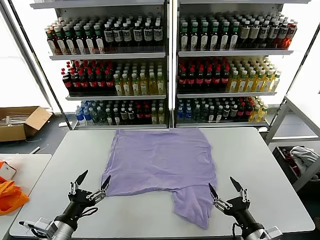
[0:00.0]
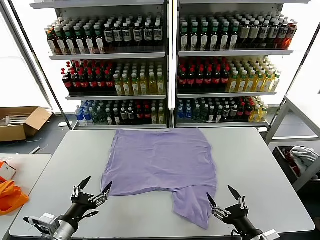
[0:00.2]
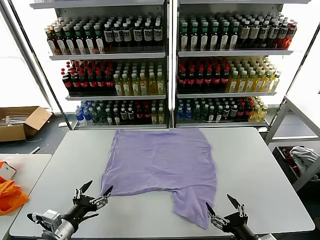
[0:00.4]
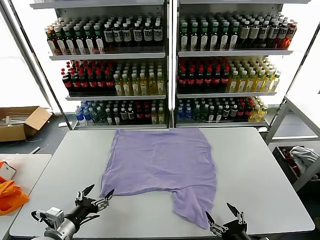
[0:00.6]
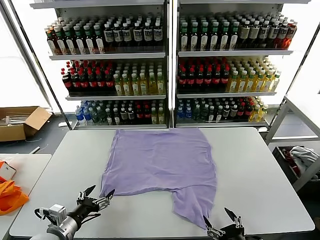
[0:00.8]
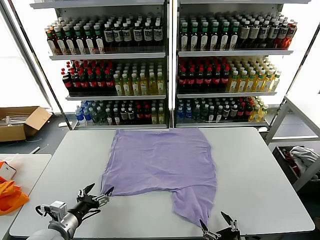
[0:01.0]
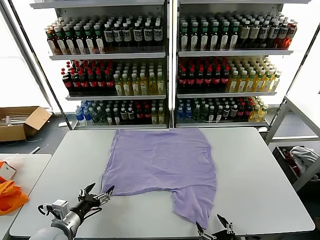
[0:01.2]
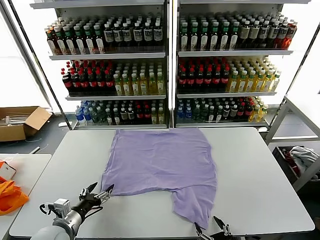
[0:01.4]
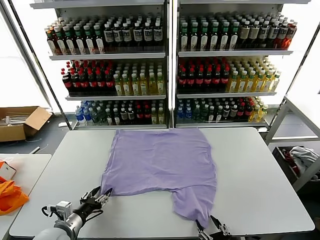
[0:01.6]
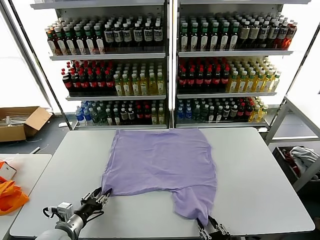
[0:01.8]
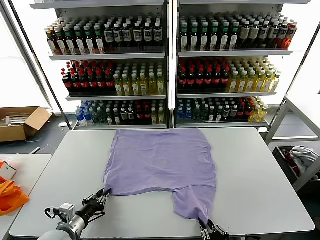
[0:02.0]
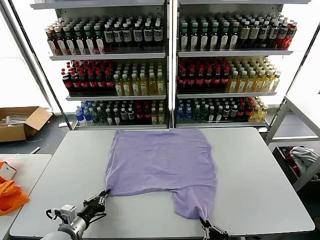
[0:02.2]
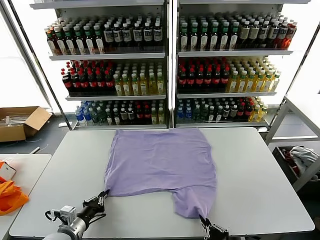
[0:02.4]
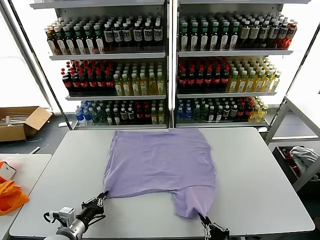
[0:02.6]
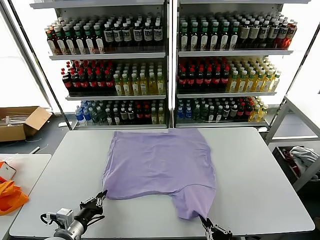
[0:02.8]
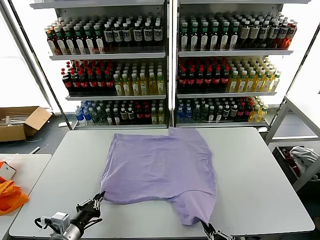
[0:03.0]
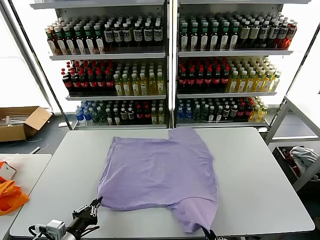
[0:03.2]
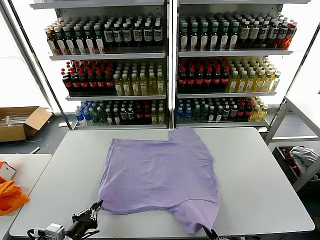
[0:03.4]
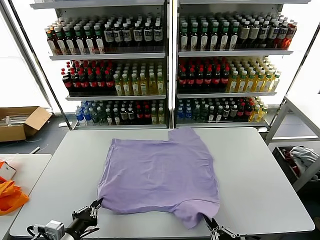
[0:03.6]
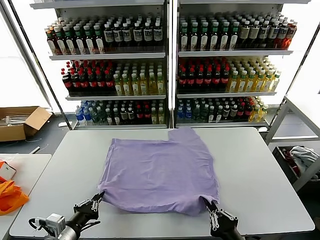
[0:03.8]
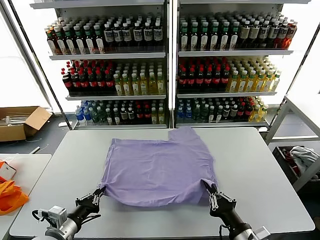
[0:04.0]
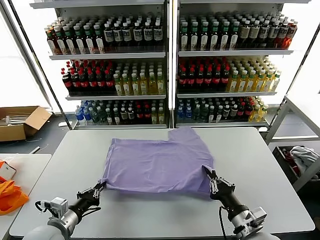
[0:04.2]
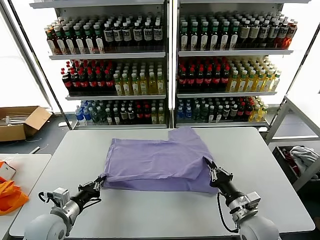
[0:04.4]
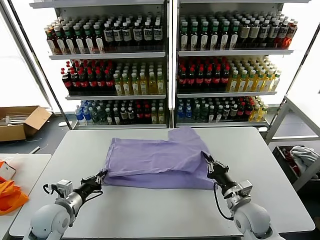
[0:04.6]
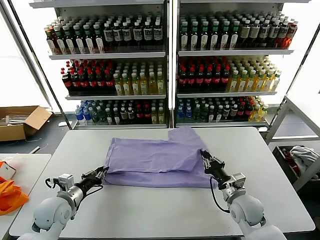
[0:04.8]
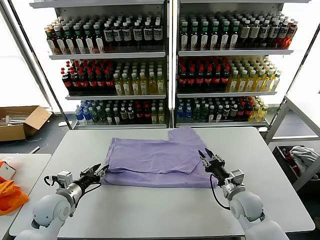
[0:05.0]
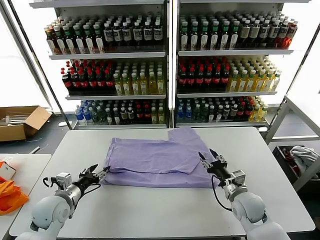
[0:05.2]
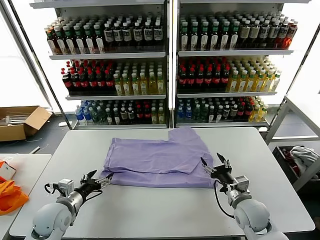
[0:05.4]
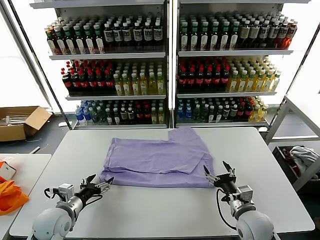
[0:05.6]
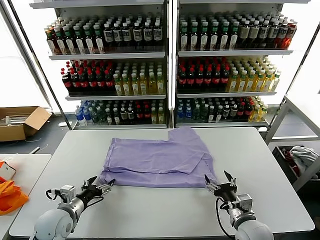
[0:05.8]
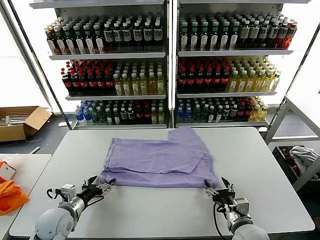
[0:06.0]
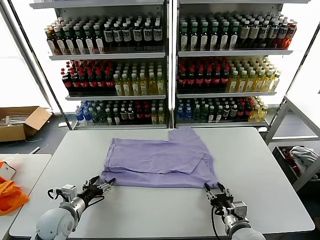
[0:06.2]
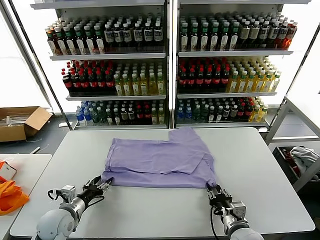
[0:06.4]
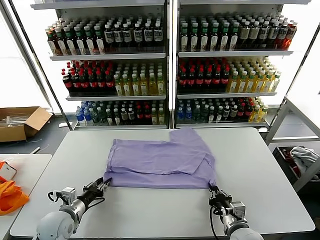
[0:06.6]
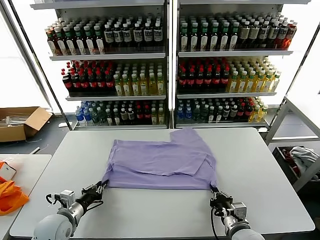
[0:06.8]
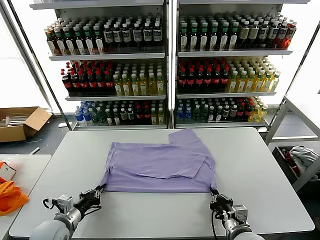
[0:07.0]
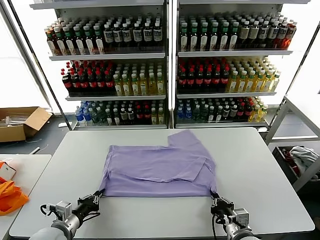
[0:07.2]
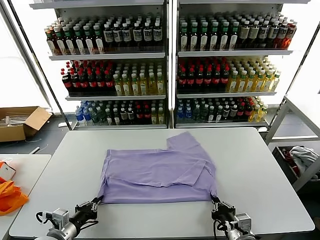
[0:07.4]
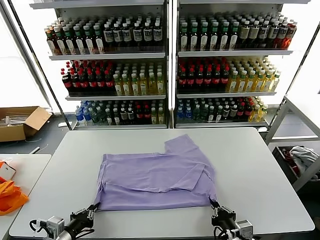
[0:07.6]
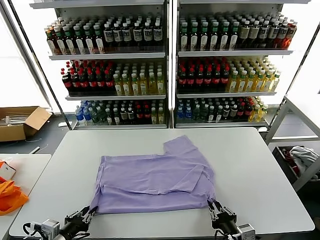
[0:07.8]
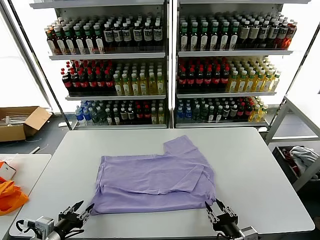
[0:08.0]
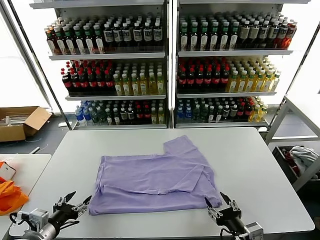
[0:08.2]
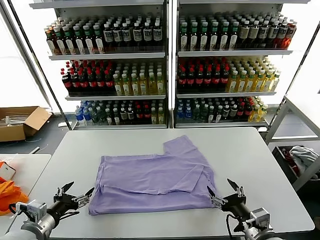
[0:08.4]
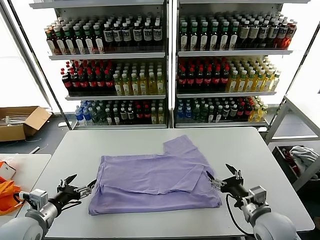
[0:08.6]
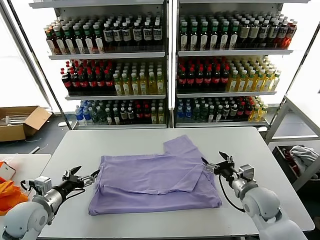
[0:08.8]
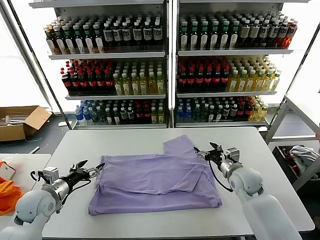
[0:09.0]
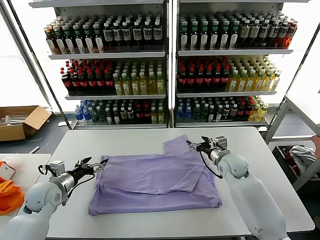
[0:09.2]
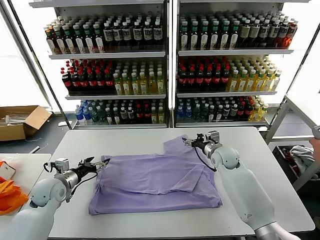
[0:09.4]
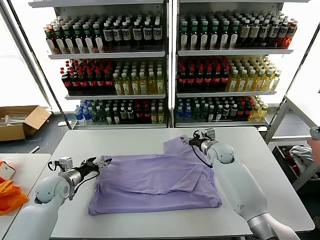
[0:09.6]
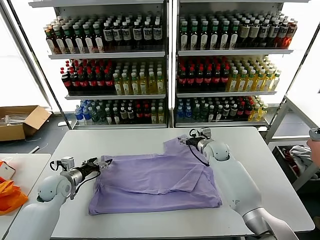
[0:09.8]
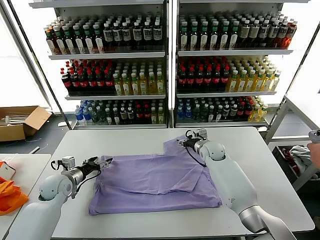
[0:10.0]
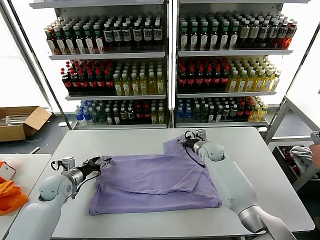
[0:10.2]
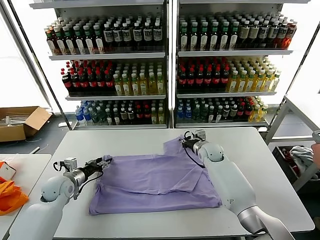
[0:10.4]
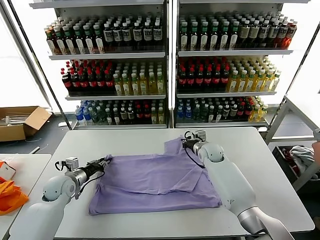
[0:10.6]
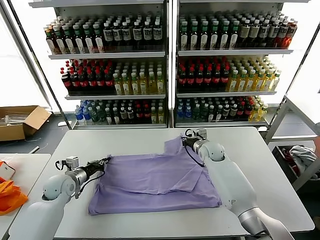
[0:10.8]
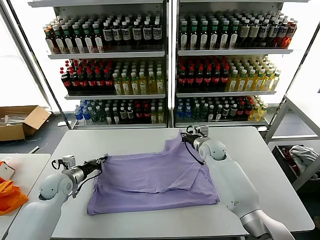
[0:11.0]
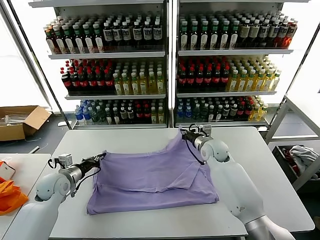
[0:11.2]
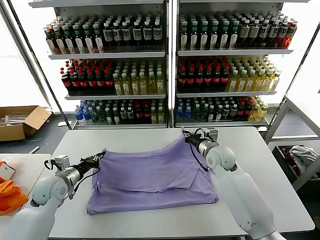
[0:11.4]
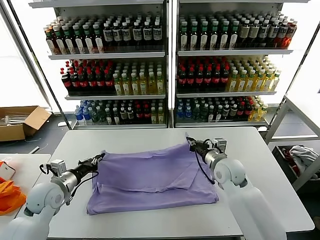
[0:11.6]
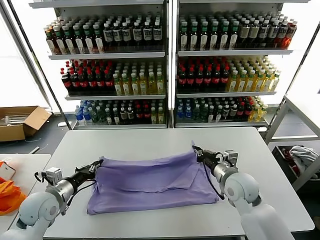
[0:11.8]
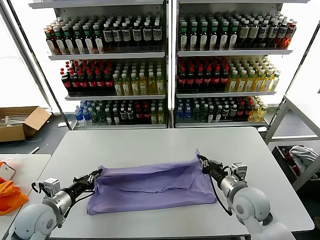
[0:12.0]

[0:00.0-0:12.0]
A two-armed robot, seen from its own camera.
Task of the whole recording: fold and organize the clothes.
Step, 0:00.0 to 0:02.4: use both grippers simultaneously to clamp the lower edge of the clothing fabric.
Step, 0:02.6 to 0:05.4: use both grippers to drag the lower edge of the fabric forward and fold it over the upper edge.
Step, 0:05.6 to 0:08.2: Drag the clothes downward with both gripper.
Step, 0:08.4 to 0:10.6: use both grippers simultaneously to clamp the upper edge of the clothing fabric.
0:01.6 to 0:03.0: Both grippers travel together backward, about 5 cm. The left gripper closes its fingers. The right gripper closes its fingers.
0:03.0 to 0:04.4: The right gripper is displaced forward by roughly 25 cm. Meanwhile the left gripper goes approximately 10 cm forward.
0:04.4 to 0:06.0: The left gripper opens; the right gripper heads backward, covering roughly 5 cm, and opens up.
0:06.0 to 0:07.6: The right gripper heads backward, covering some 10 cm, and closes; the left gripper moves backward, approximately 10 cm, and closes.
0:07.6 to 0:09.0: The left gripper heads forward, covering roughly 15 cm, and opens its fingers, while the right gripper shifts approximately 30 cm forward, and opens.
0:09.0 to 0:10.4: The right gripper shifts some 10 cm forward and to the left, and closes its fingers. The left gripper shifts about 10 cm forward and downward, and closes.
0:10.4 to 0:12.0: The left gripper is displaced backward and upward by roughly 15 cm, and closes up, while the right gripper moves backward, some 25 cm.

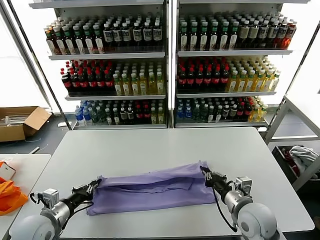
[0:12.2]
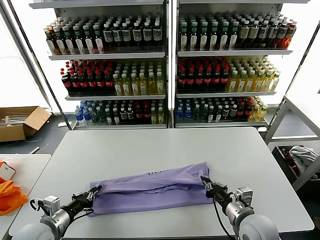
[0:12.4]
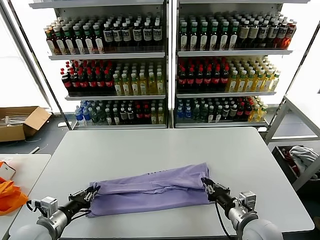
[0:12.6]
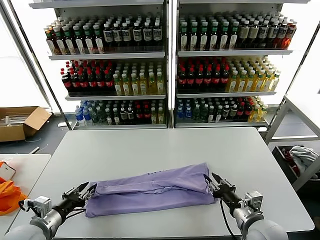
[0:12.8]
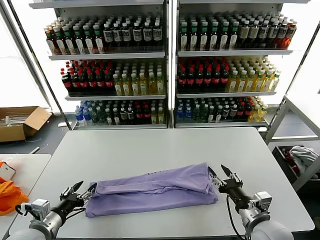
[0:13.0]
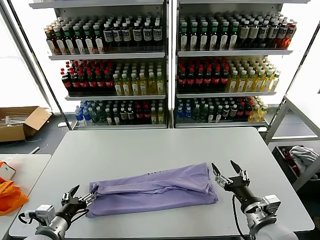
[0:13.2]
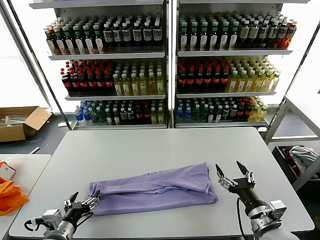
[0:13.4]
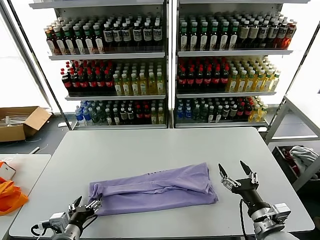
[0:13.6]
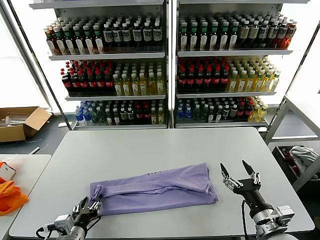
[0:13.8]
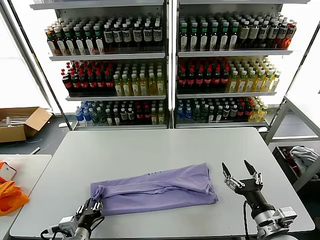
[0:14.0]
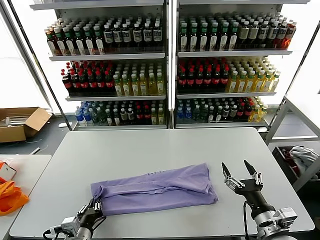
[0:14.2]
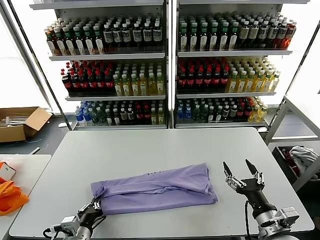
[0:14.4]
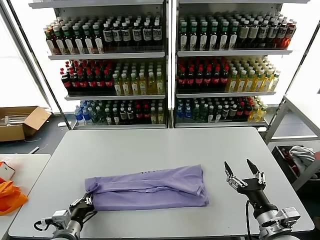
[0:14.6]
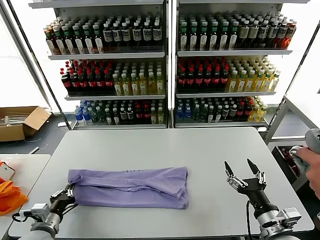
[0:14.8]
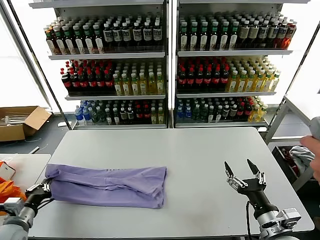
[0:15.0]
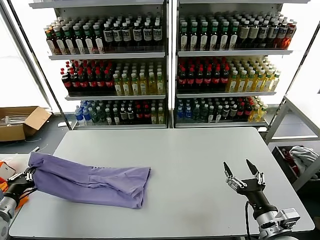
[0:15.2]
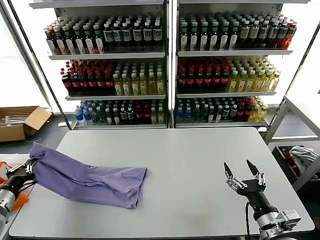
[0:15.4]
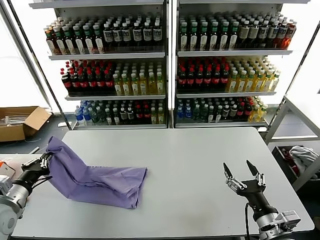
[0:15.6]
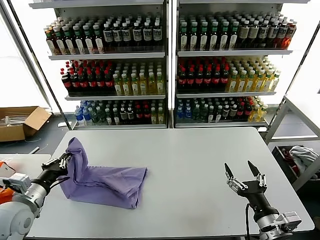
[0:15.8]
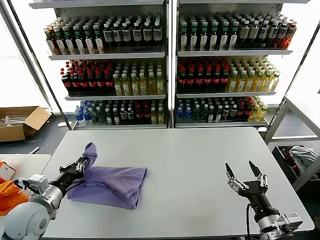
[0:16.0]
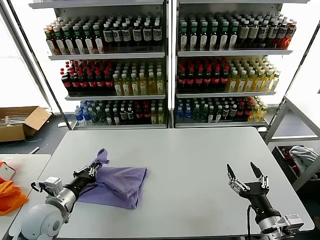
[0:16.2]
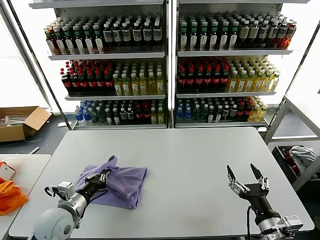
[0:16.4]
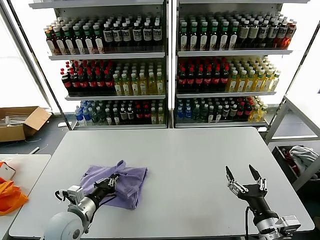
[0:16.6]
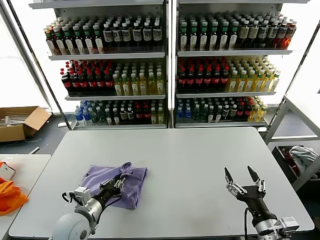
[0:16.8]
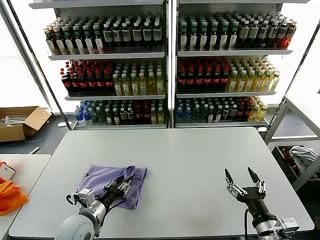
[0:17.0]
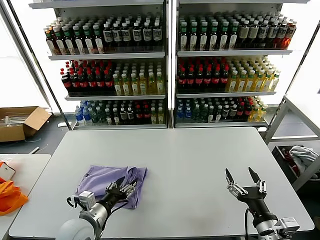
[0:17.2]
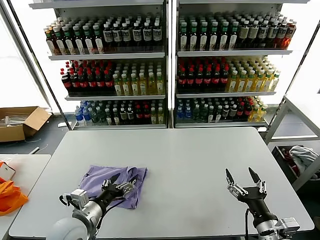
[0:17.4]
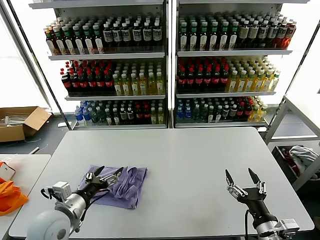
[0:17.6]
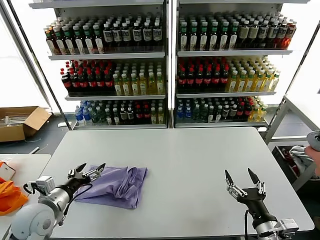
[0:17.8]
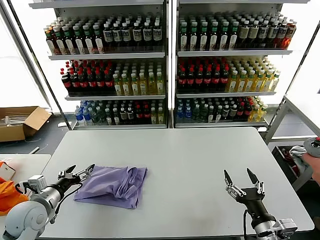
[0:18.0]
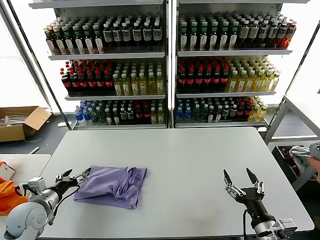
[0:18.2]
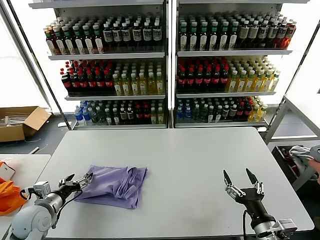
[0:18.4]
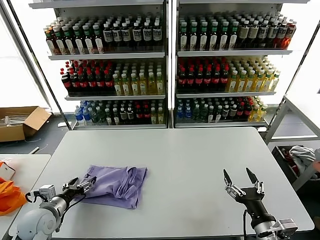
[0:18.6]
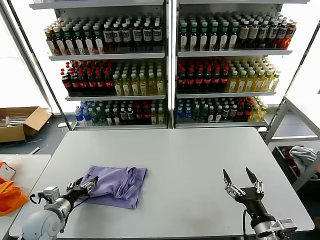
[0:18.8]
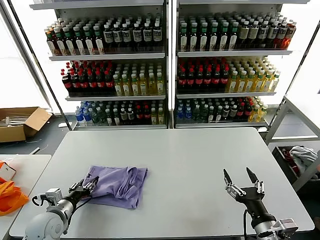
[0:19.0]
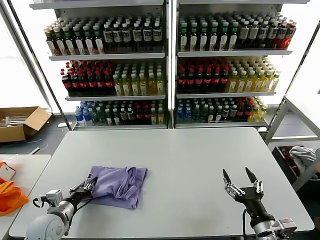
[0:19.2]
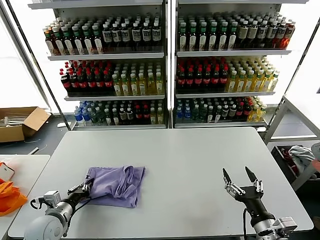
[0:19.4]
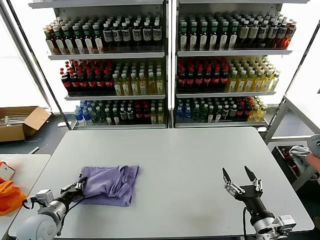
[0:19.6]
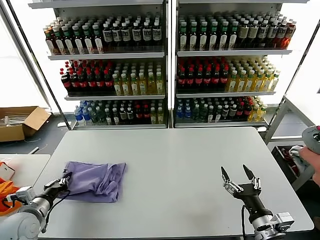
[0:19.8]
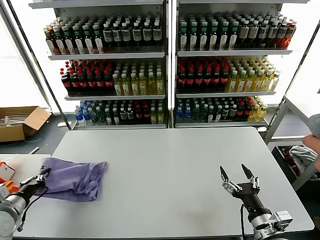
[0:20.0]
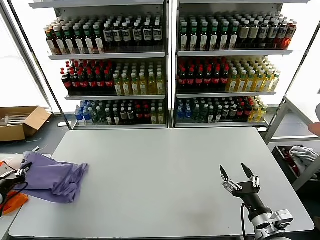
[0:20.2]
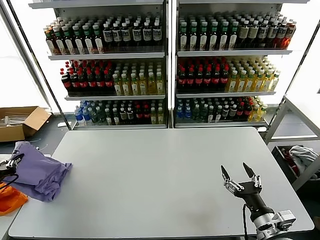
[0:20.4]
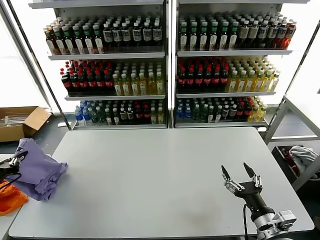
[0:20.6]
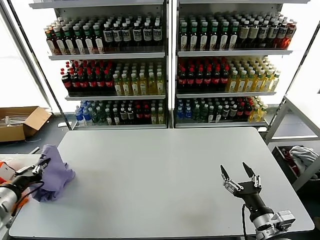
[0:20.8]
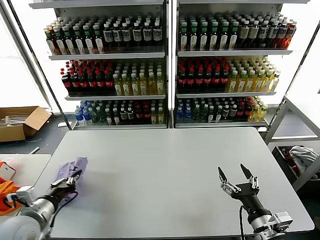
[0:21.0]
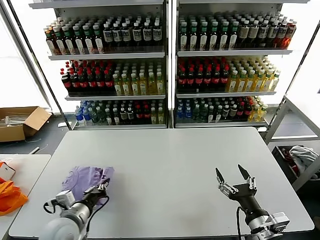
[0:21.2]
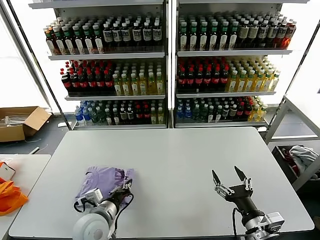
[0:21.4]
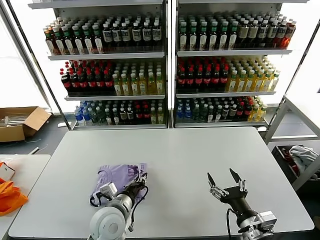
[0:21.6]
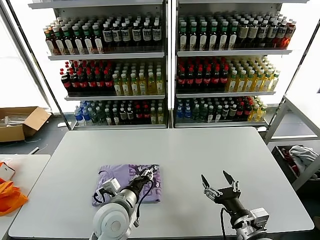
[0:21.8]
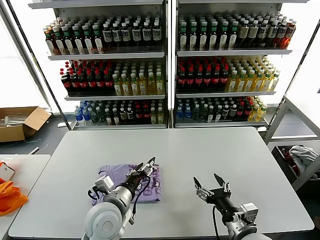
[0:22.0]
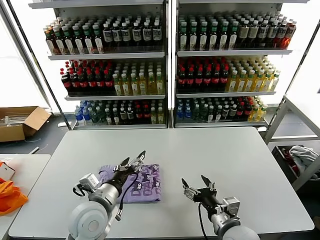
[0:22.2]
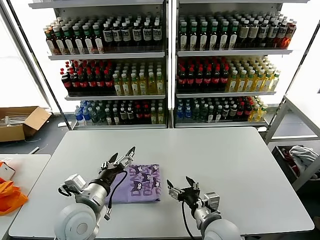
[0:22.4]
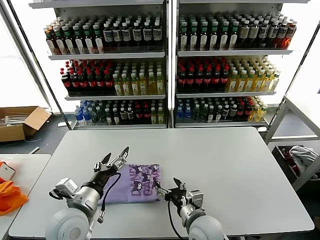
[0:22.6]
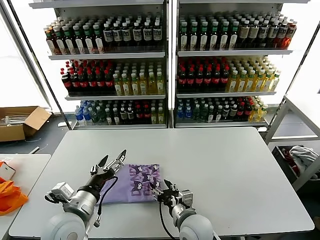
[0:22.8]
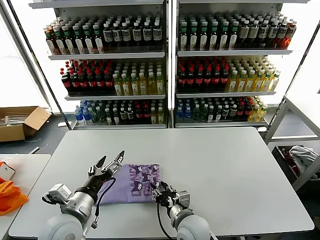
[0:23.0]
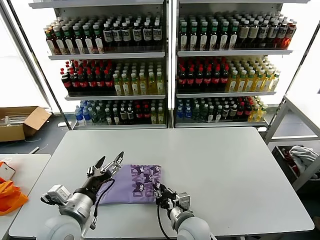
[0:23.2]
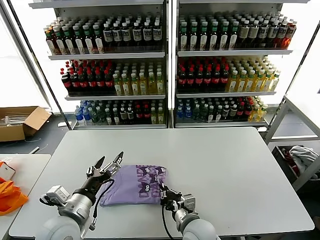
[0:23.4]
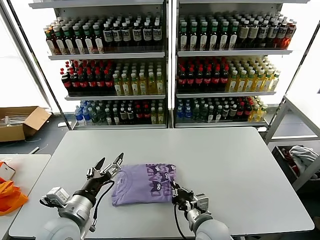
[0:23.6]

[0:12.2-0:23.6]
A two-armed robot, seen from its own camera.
Task of the whole recording: fold and organize the clothes.
Step, 0:13.0 to 0:14.2: use the left gripper to clamp the left edge of the fabric.
Step, 0:14.4 to 0:17.2: use the left gripper to drag the left edge of the fabric to the left and folds it over the right edge.
Step, 0:17.4 to 0:21.8: Flip the folded clothes over with left gripper.
0:12.2 to 0:13.6: The right gripper is displaced backward by some 5 cm, and opens its fingers. The left gripper heads to the right and backward, covering approximately 10 cm, and opens up.
0:13.6 to 0:15.0: The left gripper travels to the left by some 15 cm, and closes.
0:15.0 to 0:16.4: The left gripper goes some 15 cm to the right.
0:16.4 to 0:17.8: The left gripper ends up about 5 cm from where it was, and opens its fingers.
0:17.8 to 0:19.4: The left gripper goes some 10 cm downward, and closes up.
0:19.4 to 0:20.8: The left gripper heads upward and to the left, covering about 20 cm.
0:20.8 to 0:22.2: The right gripper is displaced to the left by about 10 cm; the left gripper goes roughly 30 cm to the right, and opens up.
0:22.2 to 0:23.6: The two grippers go roughly 5 cm to the left. The right gripper closes.
